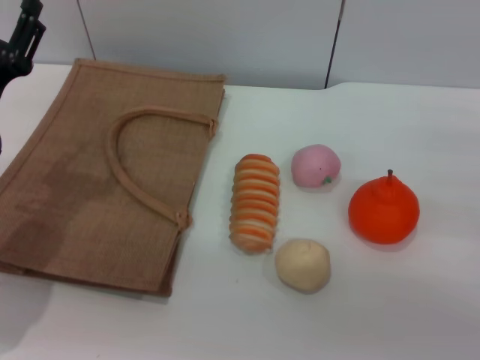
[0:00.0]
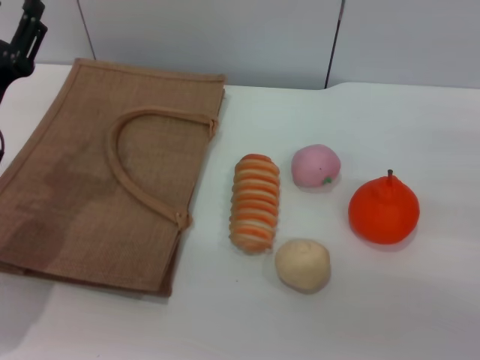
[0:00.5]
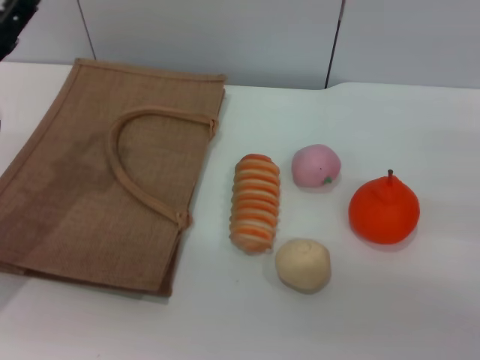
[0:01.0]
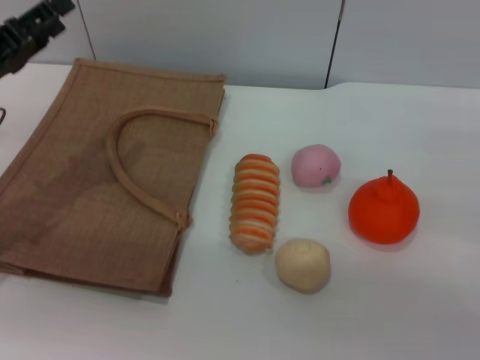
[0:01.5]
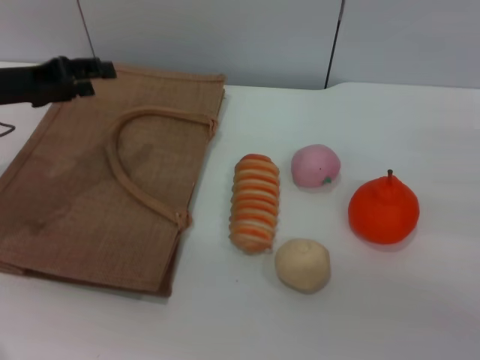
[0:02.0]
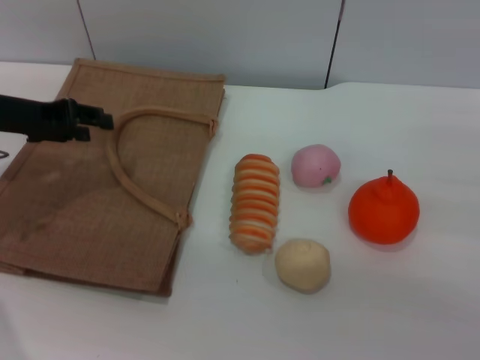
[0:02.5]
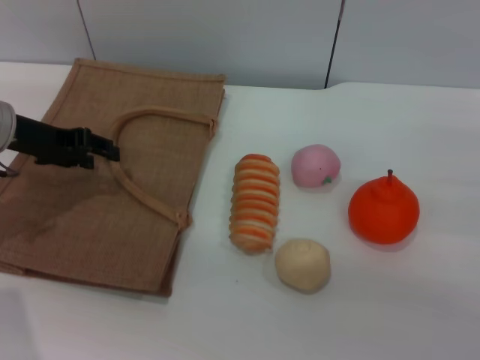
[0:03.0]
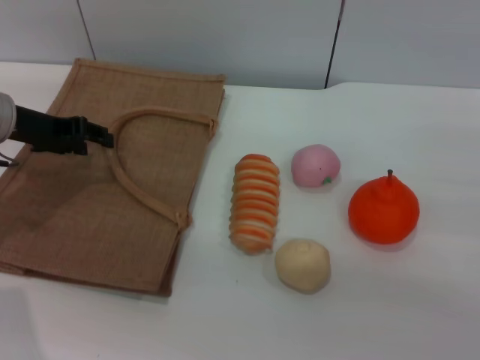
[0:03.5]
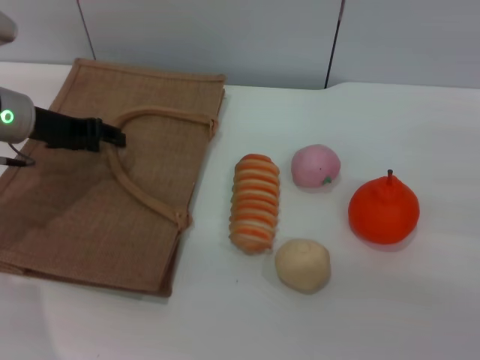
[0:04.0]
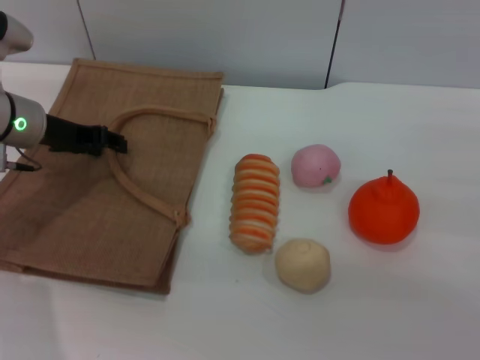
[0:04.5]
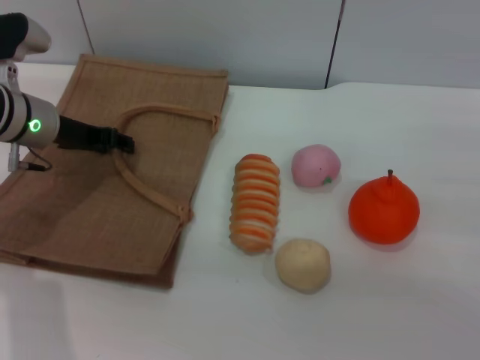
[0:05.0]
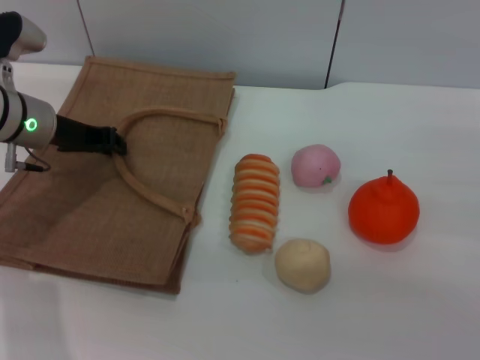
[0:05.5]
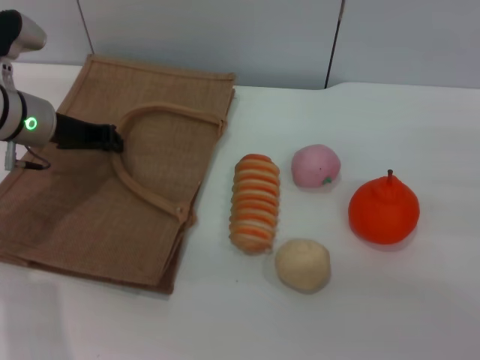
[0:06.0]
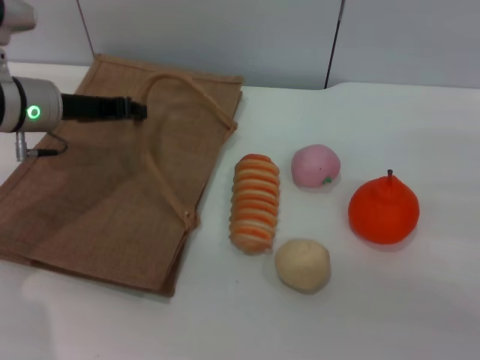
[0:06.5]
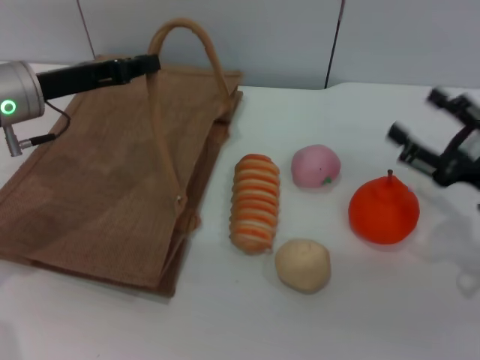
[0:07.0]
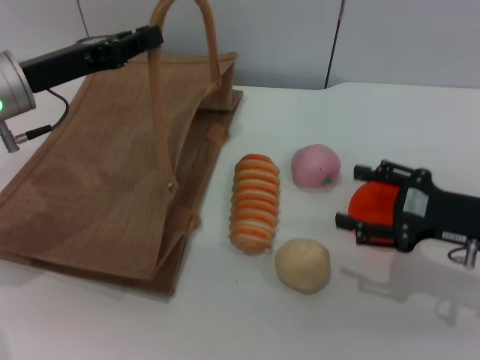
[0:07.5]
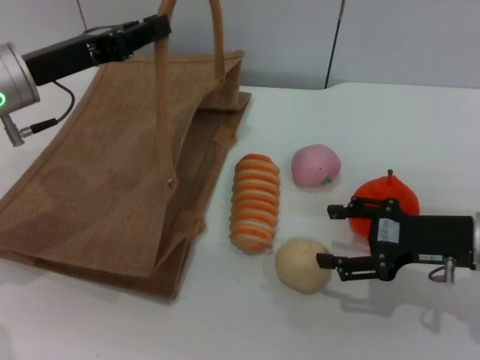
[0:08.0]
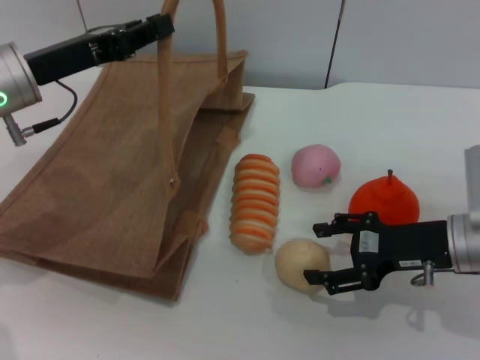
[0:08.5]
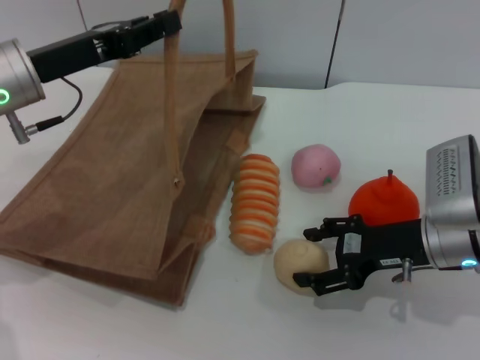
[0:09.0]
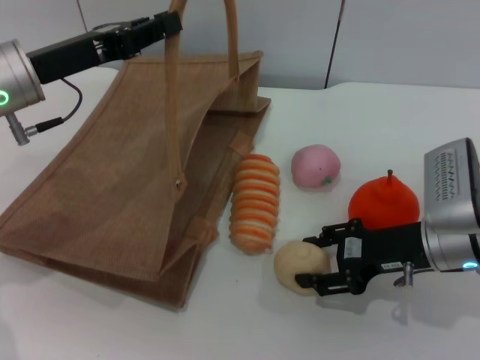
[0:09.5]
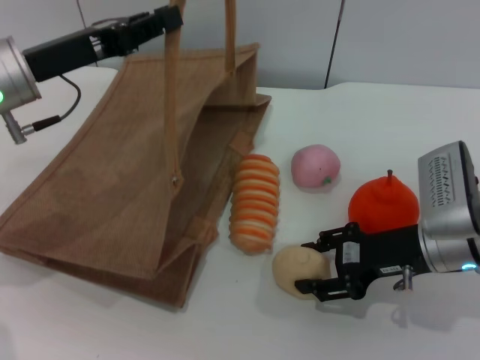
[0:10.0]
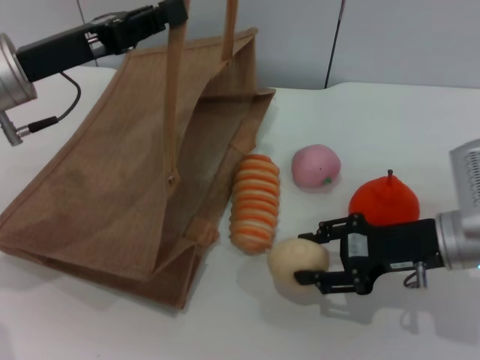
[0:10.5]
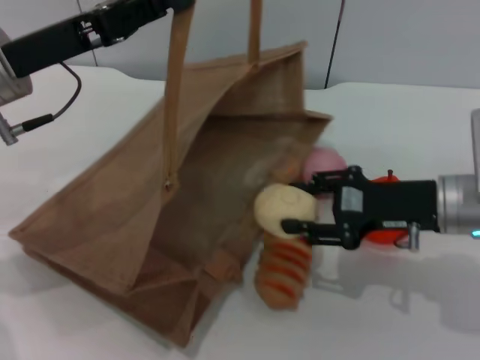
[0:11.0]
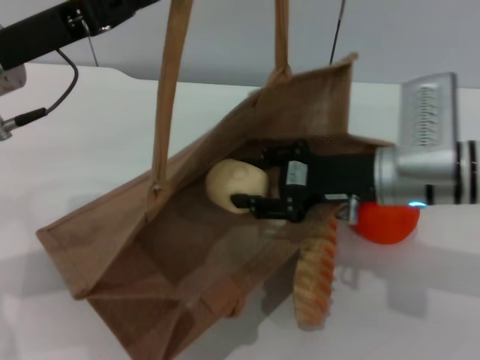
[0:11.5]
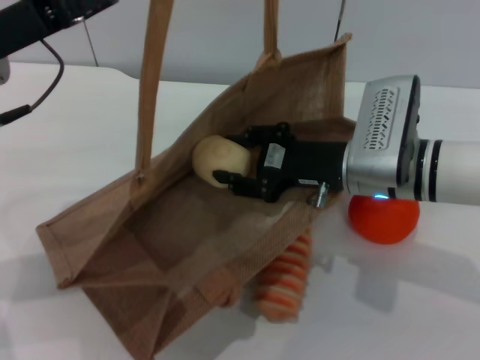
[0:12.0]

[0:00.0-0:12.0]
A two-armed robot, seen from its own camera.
Task of the whole recording: pick up the egg yolk pastry from the table and place it in the brown handbag.
Step, 0:00.0 to 0:06.5: Lift the woven bag with the left gripper to open it.
Step, 0:07.0 to 0:10.5: Pick up the egg yolk pastry with the right gripper.
0:00.0 to 0:02.0: The left gripper moves forward and upward, some 10 cm.
0:02.0 to 0:04.0: The left gripper moves some 5 cm.
0:04.0 to 0:06.0: The left gripper closes up.
0:06.0 to 0:08.0: The left gripper changes place by approximately 5 cm, while the right gripper moves to the left, some 10 cm.
0:08.0 to 0:10.0: The right gripper shifts by approximately 5 cm, and closes.
0:10.0 to 0:12.0: The right gripper shifts roughly 10 cm to the left; the left gripper changes place by about 5 cm.

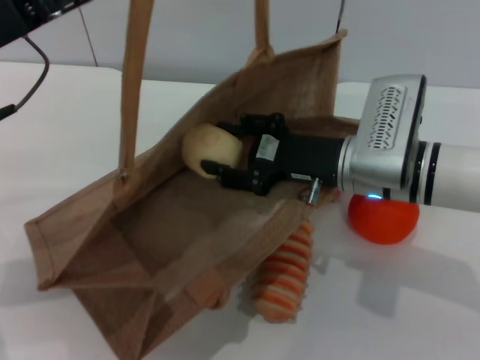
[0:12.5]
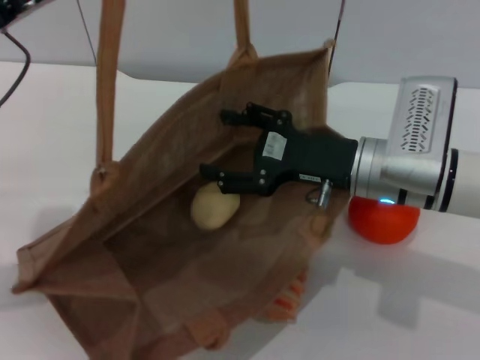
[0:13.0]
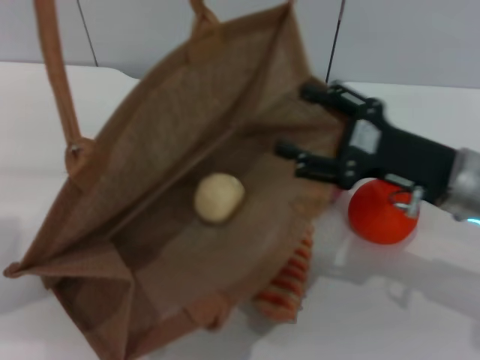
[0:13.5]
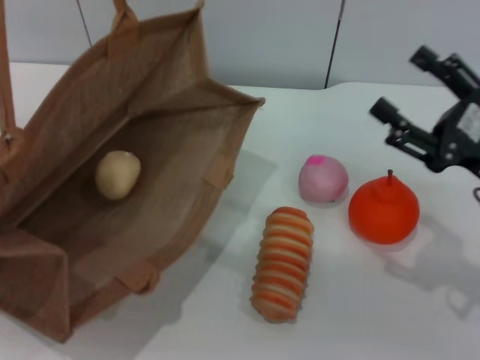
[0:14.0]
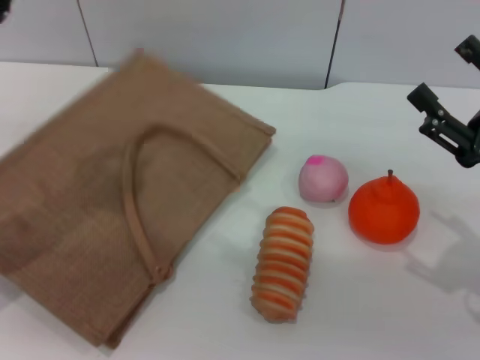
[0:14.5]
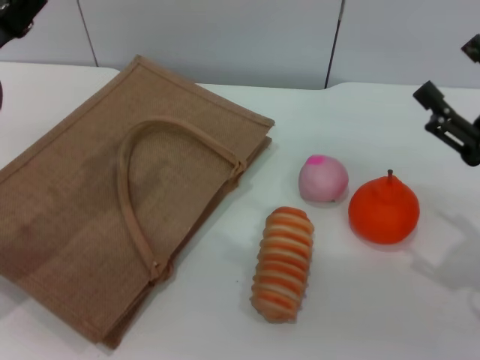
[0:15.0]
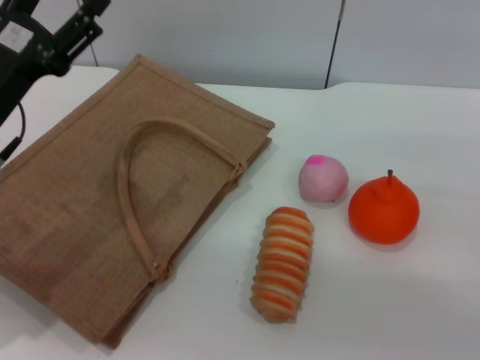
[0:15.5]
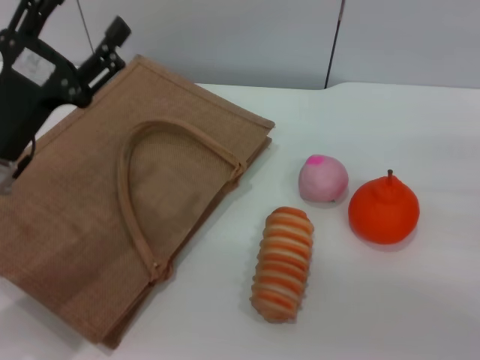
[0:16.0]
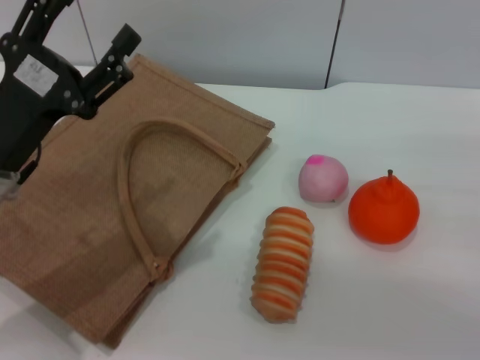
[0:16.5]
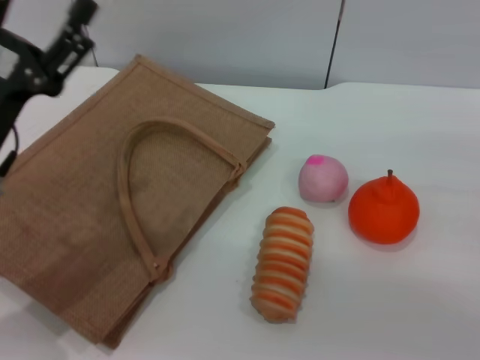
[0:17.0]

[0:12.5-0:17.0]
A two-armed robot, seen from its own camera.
Task of the whole recording: pick up the egg yolk pastry from the table and place it in the brown handbag.
Step, 0:13.5 to 0:14.5: Lower the woven bag with the left gripper to close it.
0:12.5 to 0:14.5: The left gripper heads downward and to the left, covering about 10 cm. Meanwhile the right gripper is displaced to the right and backward by roughly 20 cm, and opens.
0:14.5 to 0:17.0: The grippers both shift to the right by roughly 5 cm. The left gripper opens up.
